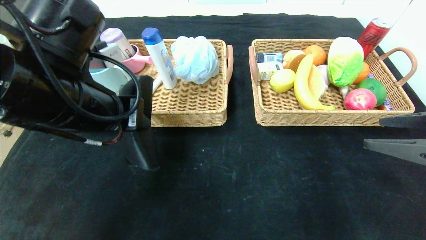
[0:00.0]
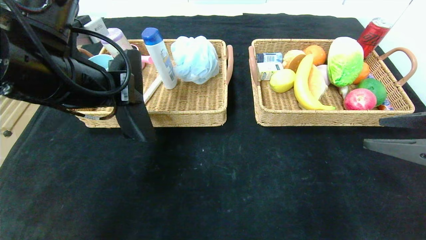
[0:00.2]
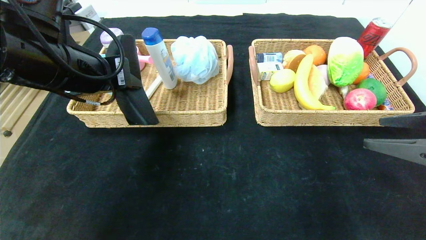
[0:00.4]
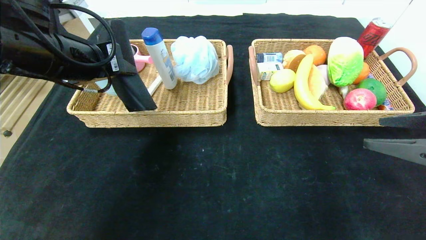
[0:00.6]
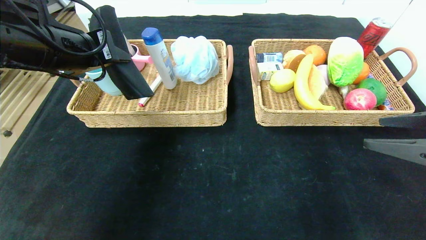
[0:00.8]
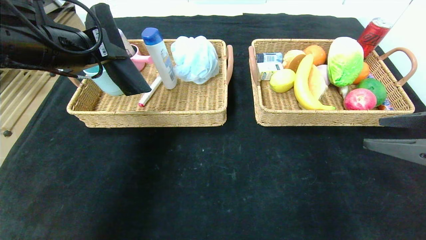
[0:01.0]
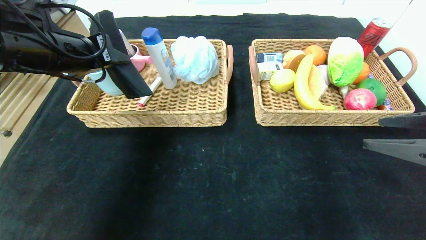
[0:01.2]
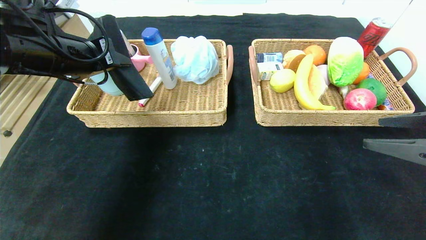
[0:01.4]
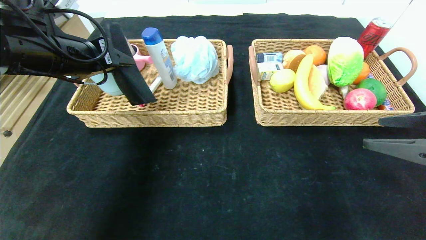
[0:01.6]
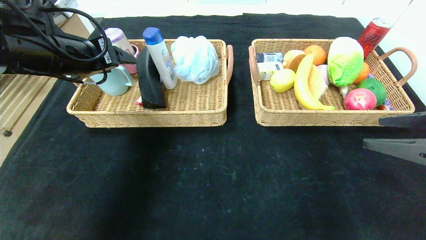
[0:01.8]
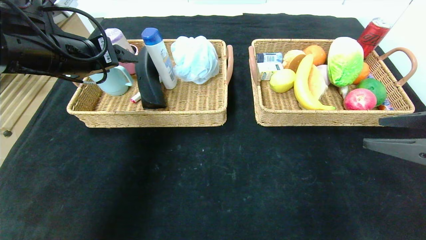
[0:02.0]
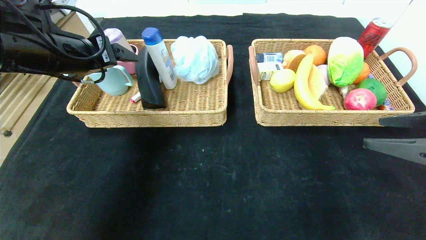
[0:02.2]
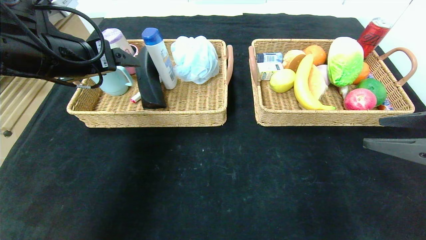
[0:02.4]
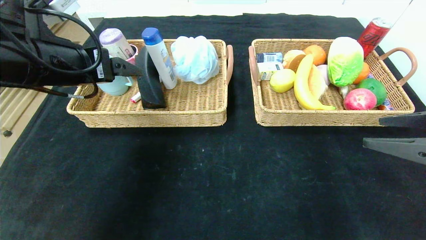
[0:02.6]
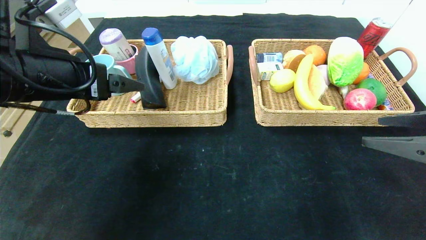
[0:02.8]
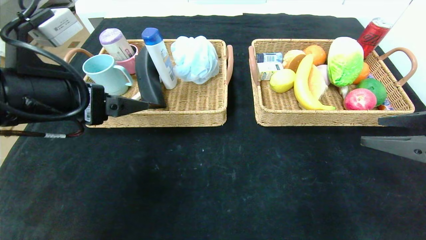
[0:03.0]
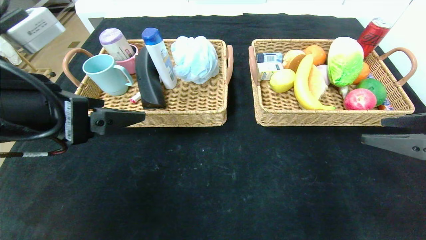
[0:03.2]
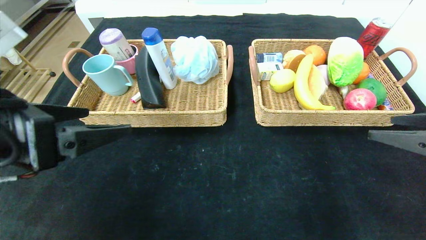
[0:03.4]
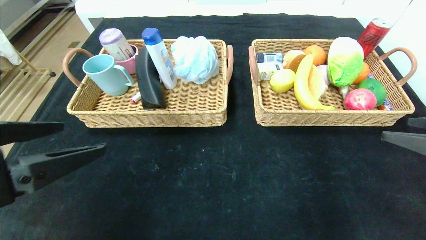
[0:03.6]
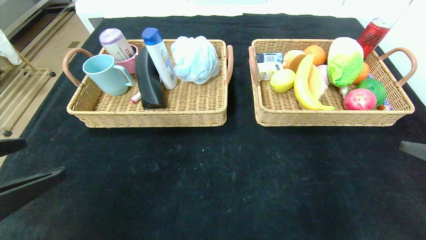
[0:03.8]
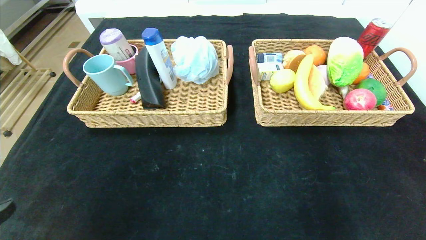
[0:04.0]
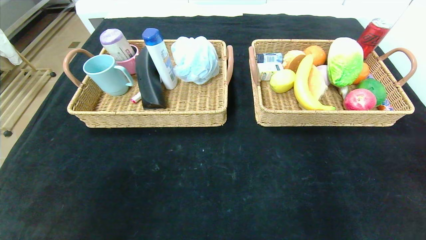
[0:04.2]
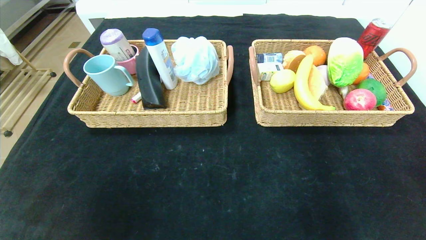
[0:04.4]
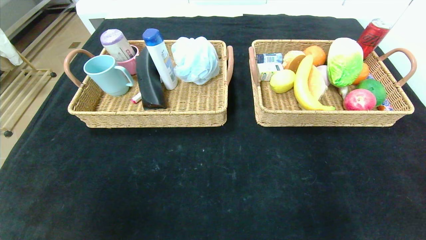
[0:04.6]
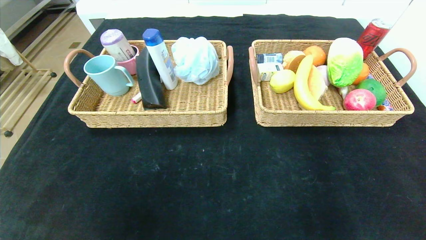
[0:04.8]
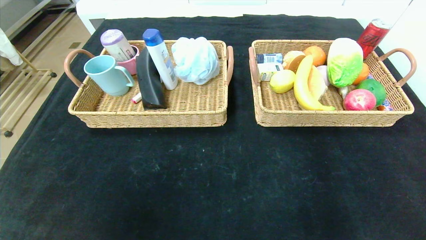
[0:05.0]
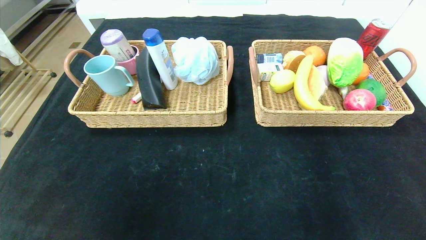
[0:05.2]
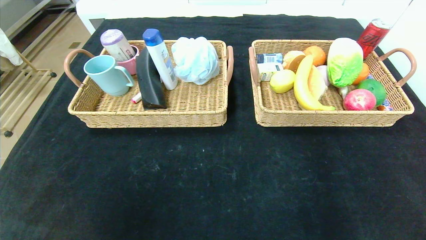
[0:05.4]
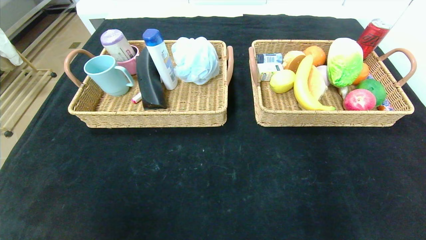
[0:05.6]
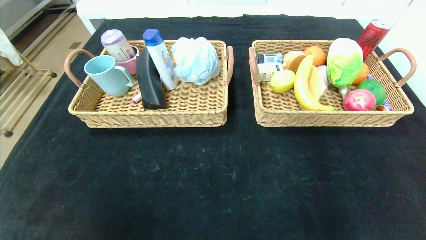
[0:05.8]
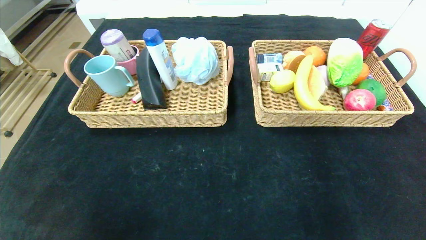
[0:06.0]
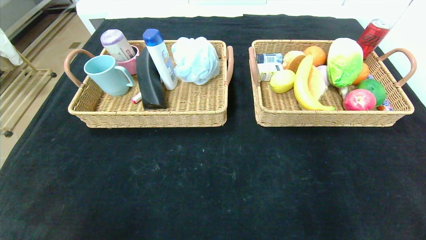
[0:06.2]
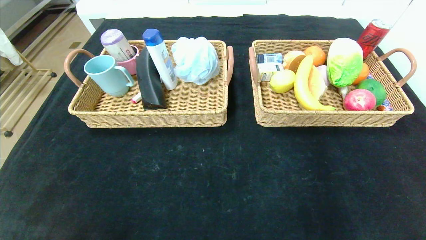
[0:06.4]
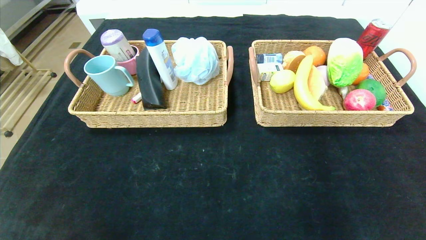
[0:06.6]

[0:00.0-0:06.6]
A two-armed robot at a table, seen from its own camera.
Step, 0:00.0 to 0:02.8: Grasp the glasses case and put it in the left basket.
0:00.0 to 0:01.6: The left gripper goes some 10 cm forward and to the left.
0:01.6 to 0:03.2: The left gripper goes some 15 cm backward, and opens.
0:03.2 to 0:05.0: The left gripper shifts about 25 cm backward; the right gripper is displaced backward and downward by some 25 cm.

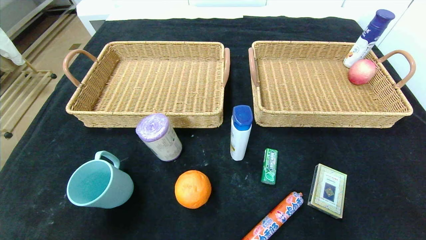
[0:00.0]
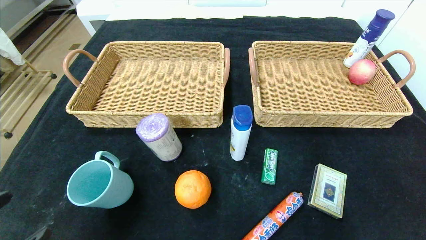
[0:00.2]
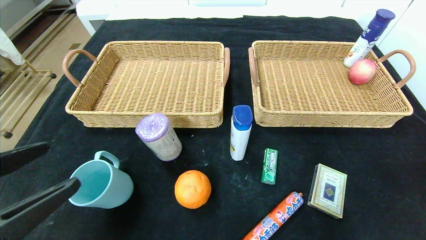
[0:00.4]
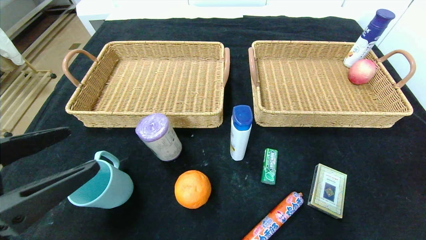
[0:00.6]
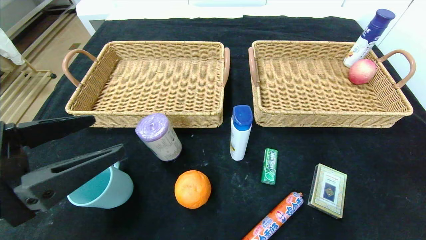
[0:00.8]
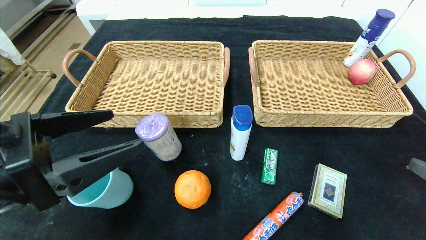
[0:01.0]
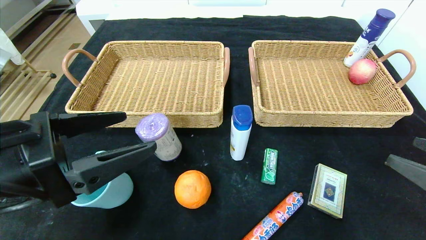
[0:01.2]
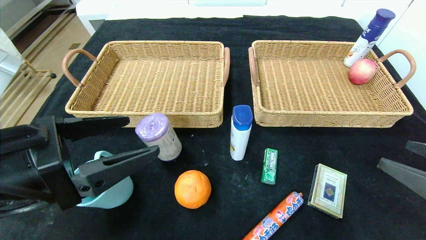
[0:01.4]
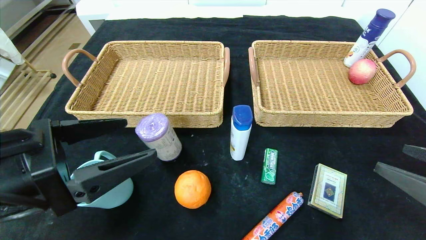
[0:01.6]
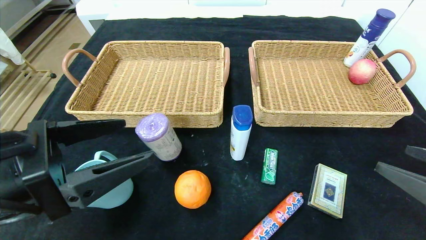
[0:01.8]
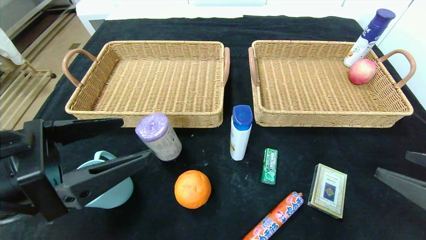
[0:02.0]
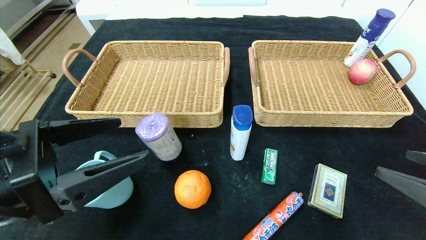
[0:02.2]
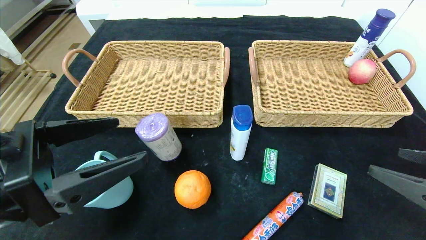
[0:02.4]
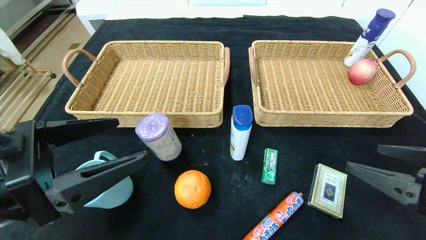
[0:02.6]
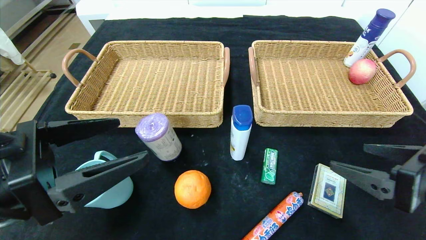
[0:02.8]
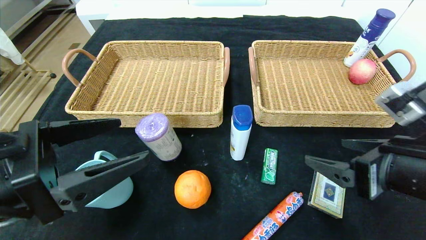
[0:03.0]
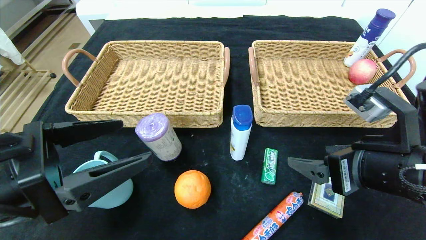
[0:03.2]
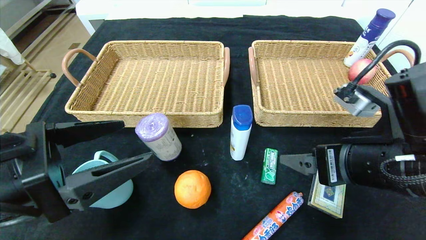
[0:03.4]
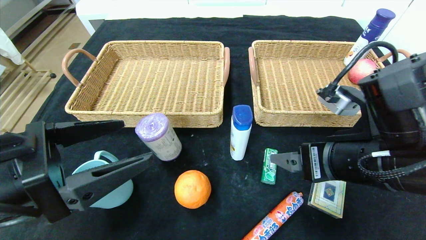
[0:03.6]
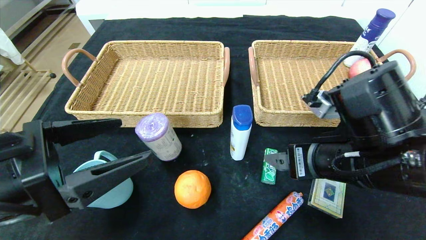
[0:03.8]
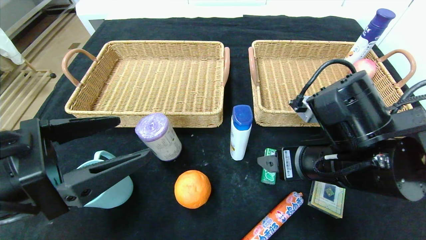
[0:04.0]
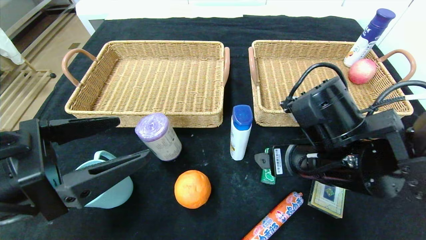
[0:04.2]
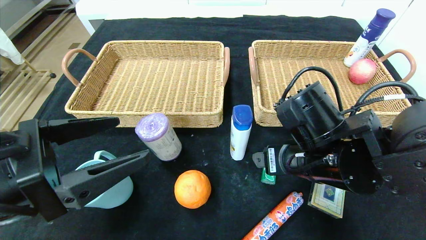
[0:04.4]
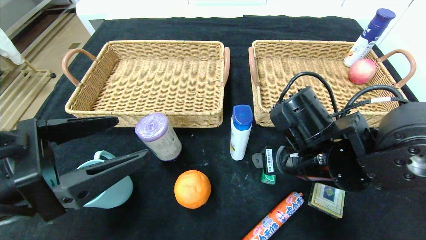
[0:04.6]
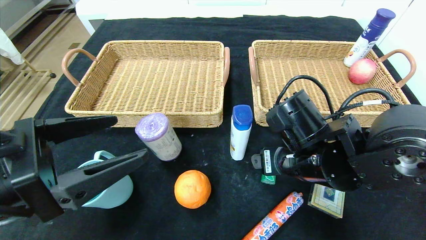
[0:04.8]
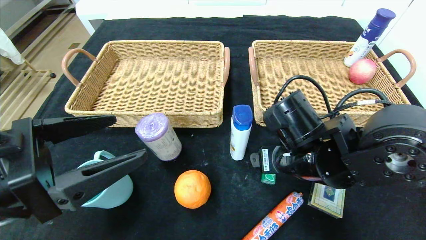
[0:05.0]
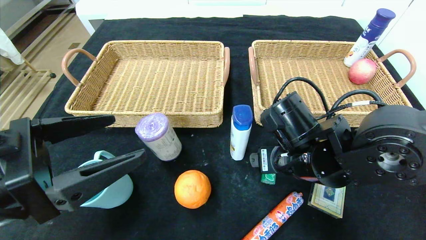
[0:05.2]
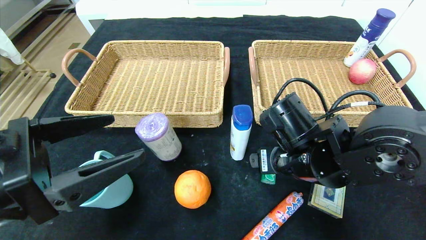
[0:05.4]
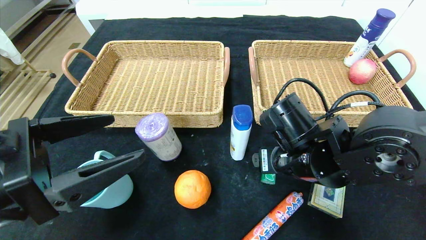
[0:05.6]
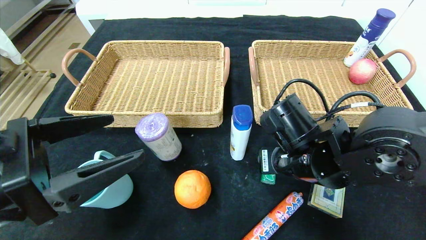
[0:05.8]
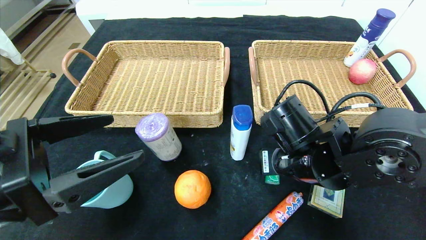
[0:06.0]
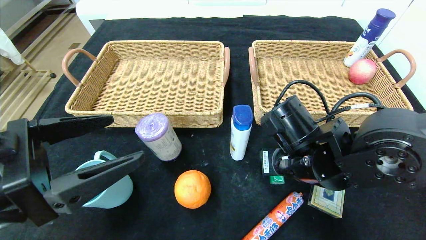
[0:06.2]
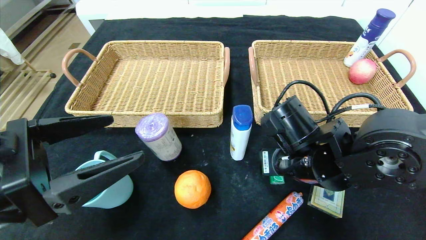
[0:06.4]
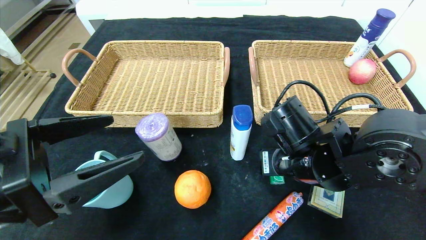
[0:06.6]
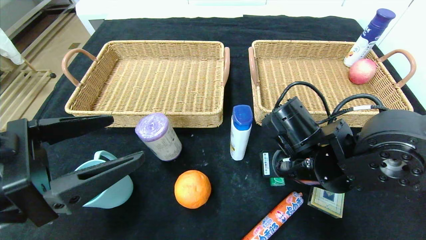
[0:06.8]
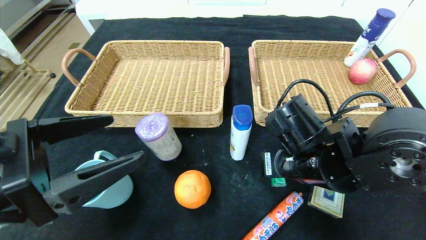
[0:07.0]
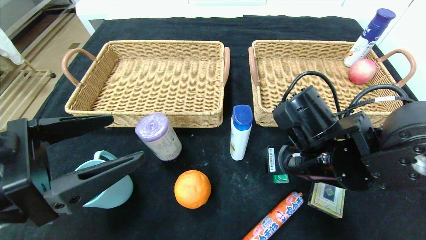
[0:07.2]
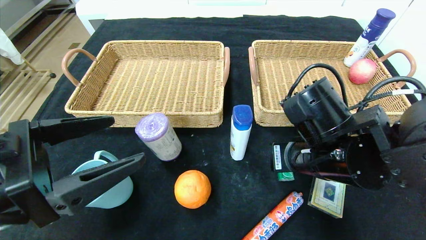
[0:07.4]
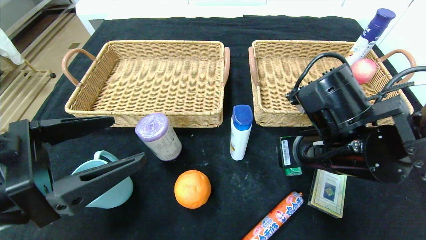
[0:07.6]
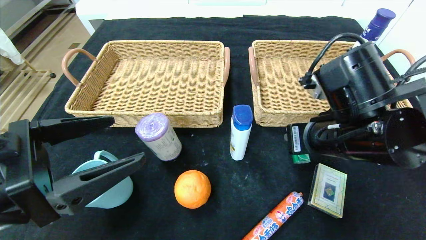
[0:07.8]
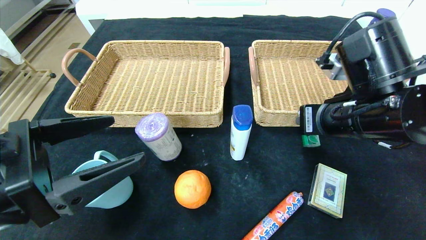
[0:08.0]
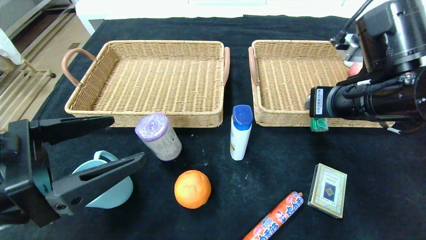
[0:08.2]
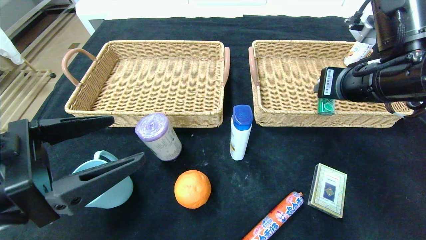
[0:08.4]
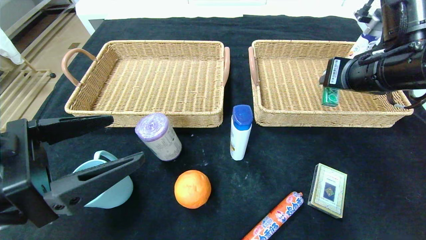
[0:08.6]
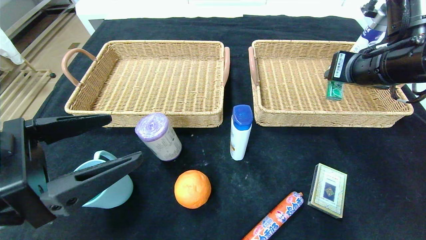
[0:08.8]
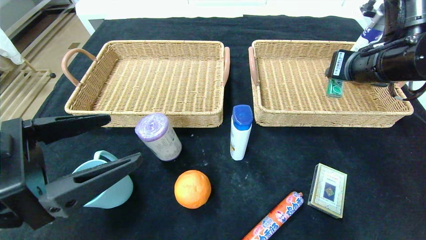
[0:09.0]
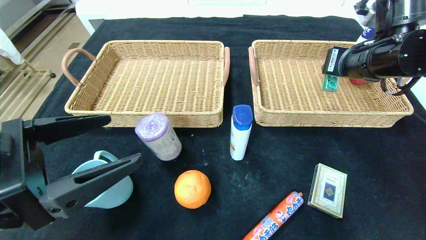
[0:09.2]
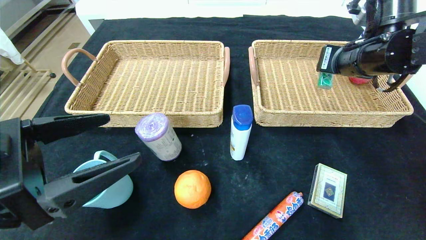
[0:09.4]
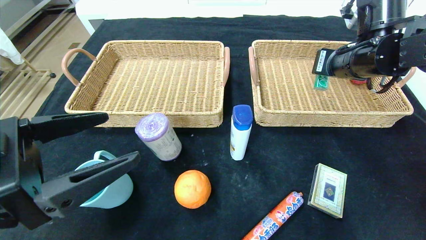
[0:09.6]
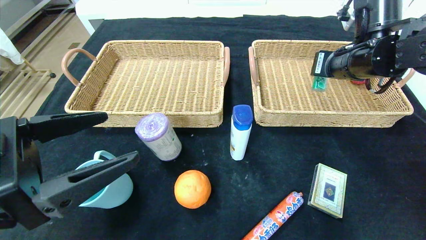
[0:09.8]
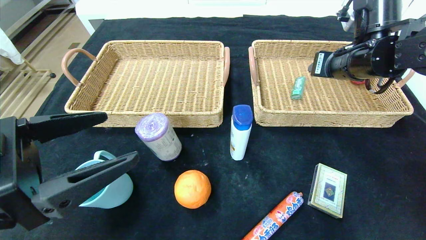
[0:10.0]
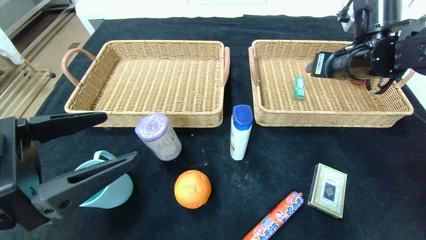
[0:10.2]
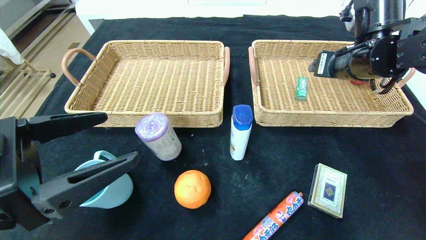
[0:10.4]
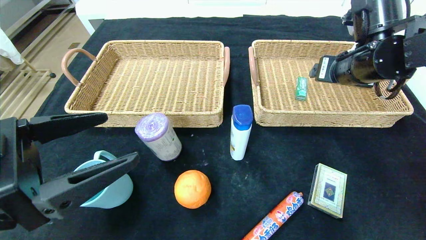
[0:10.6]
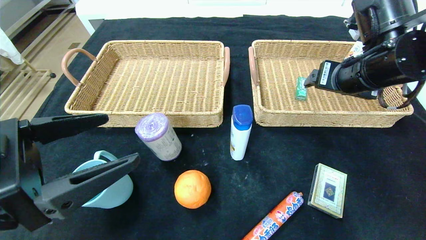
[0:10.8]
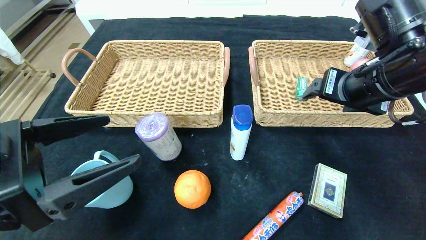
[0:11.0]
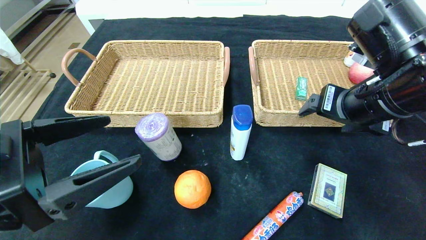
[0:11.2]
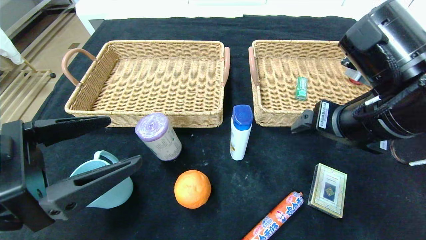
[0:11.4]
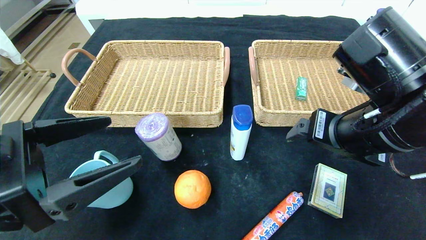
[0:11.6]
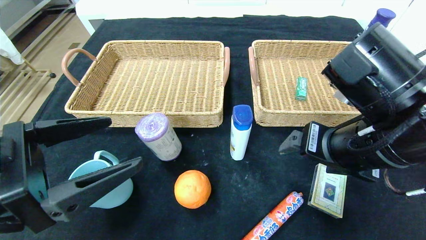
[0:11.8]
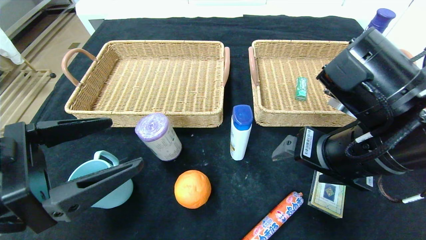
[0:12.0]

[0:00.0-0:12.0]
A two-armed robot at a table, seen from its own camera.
Step, 0:00.0 to 0:09.8: Grasp the green chewing gum and put it in the right basket.
0:00.0 to 0:01.6: The right gripper moves forward and upward, about 15 cm; the left gripper moves forward, upward and to the right, approximately 15 cm.
0:01.6 to 0:03.0: The right gripper shifts approximately 10 cm to the left and forward.
0:03.0 to 0:04.4: The right gripper goes approximately 10 cm to the left and forward.
0:04.4 to 0:06.0: The right gripper closes.
0:06.0 to 0:07.6: The right gripper ends up approximately 5 cm from where it was.
0:07.6 to 0:09.0: The right gripper heads to the right, upward and forward, covering roughly 15 cm.
0:09.0 to 0:10.4: The right gripper opens.
0:10.4 to 0:12.0: The right gripper shifts approximately 15 cm backward and to the left.
